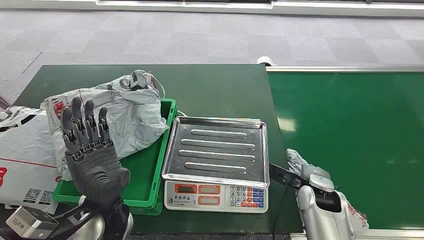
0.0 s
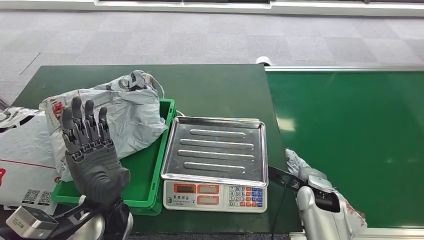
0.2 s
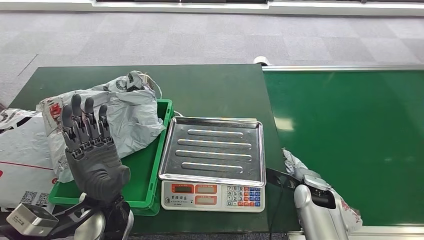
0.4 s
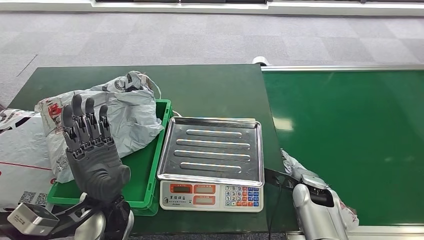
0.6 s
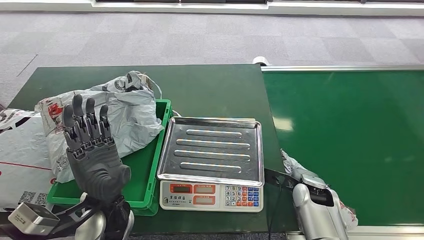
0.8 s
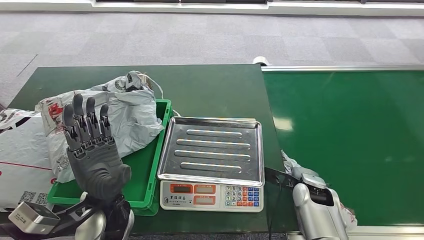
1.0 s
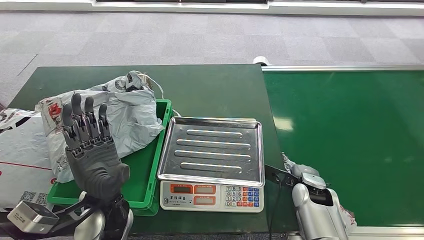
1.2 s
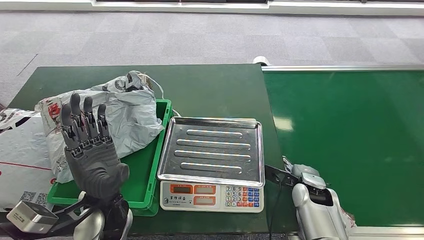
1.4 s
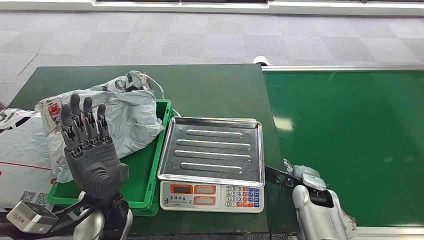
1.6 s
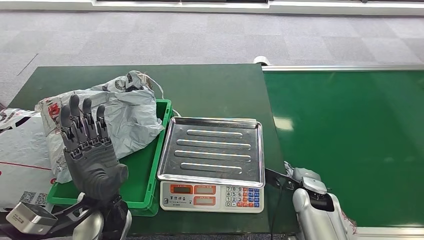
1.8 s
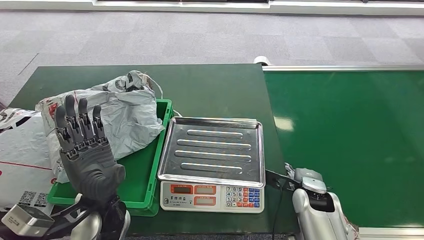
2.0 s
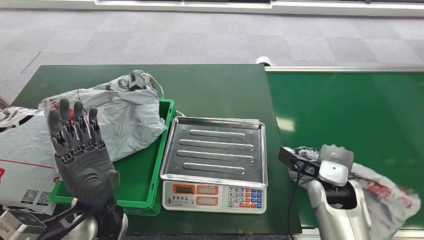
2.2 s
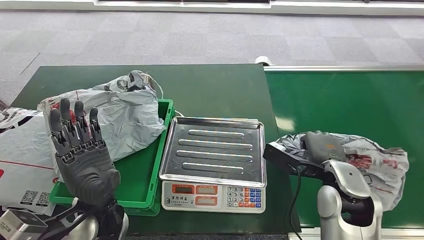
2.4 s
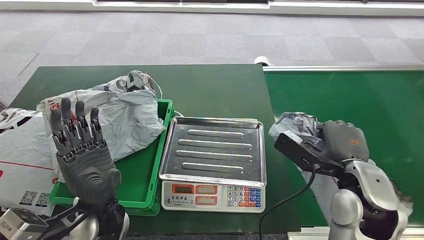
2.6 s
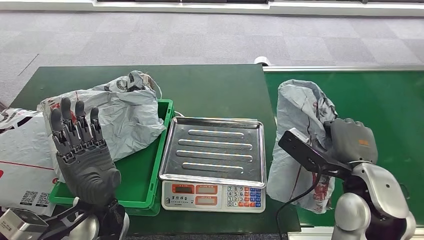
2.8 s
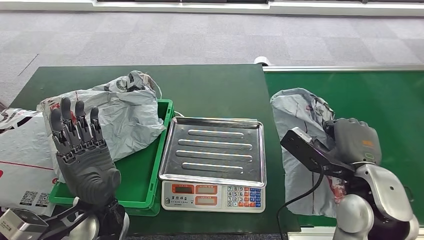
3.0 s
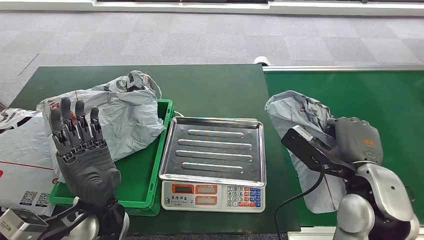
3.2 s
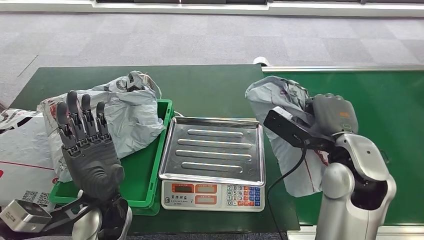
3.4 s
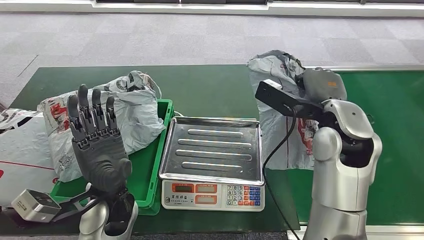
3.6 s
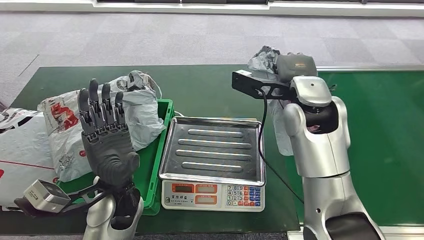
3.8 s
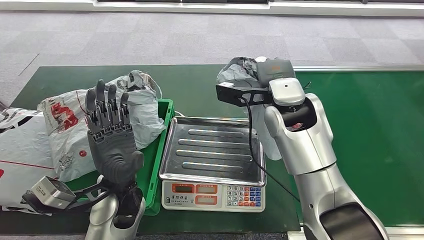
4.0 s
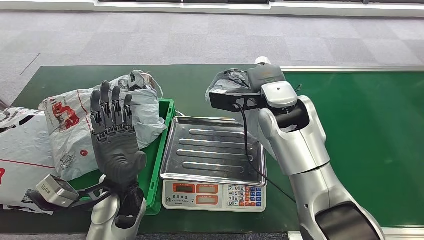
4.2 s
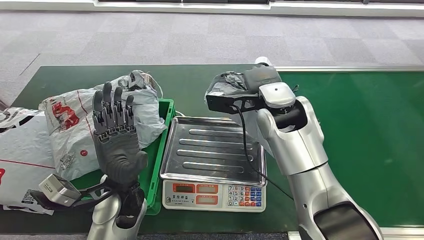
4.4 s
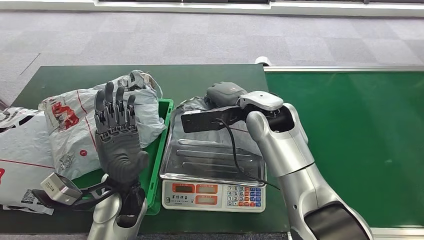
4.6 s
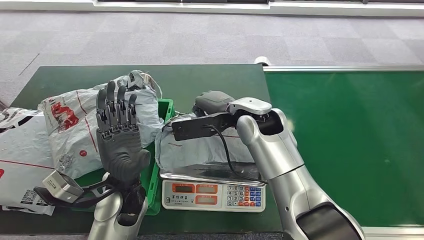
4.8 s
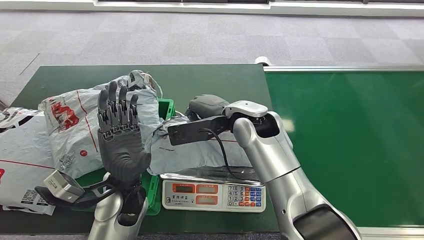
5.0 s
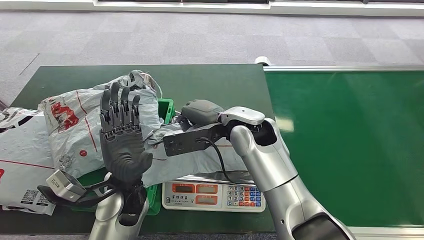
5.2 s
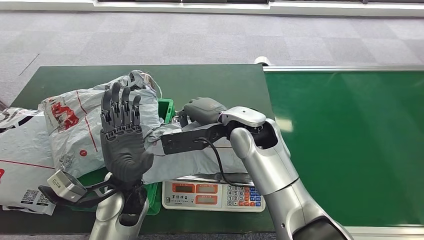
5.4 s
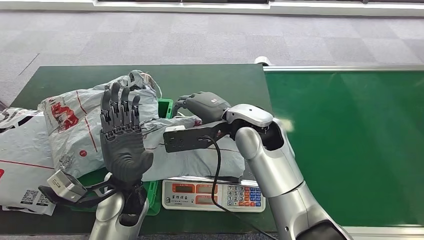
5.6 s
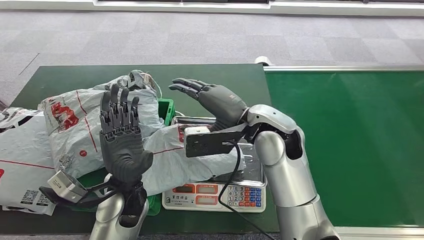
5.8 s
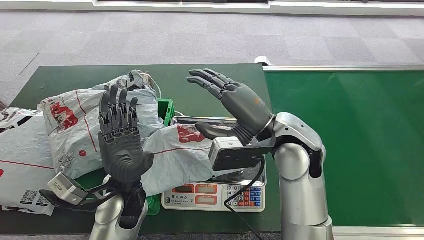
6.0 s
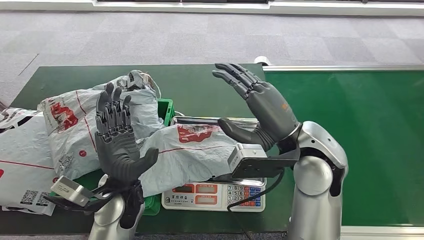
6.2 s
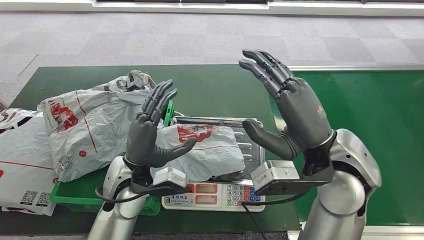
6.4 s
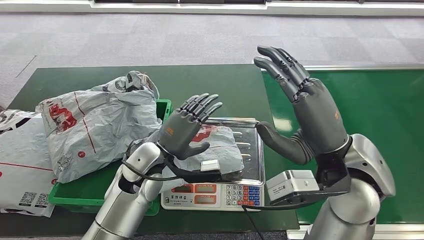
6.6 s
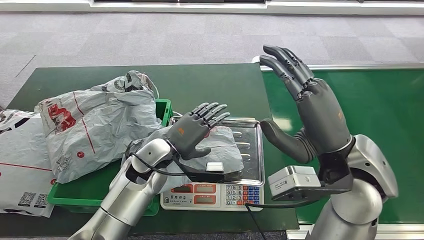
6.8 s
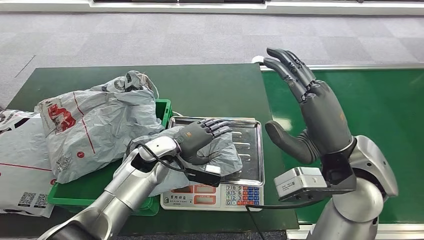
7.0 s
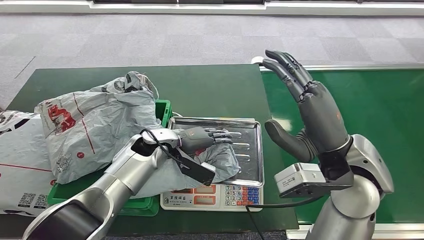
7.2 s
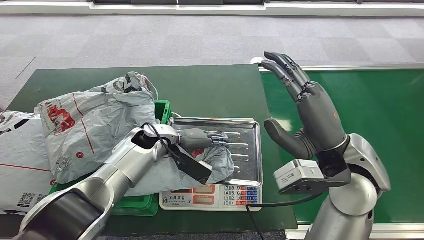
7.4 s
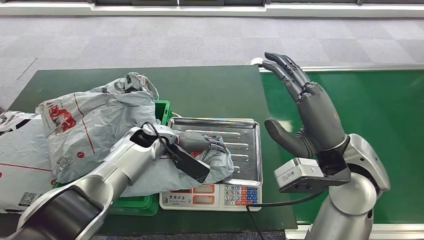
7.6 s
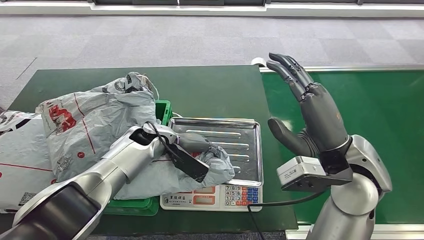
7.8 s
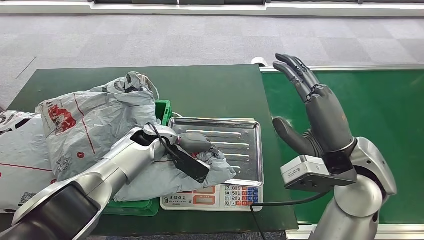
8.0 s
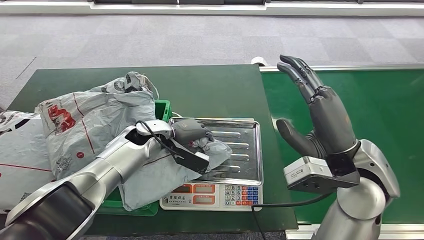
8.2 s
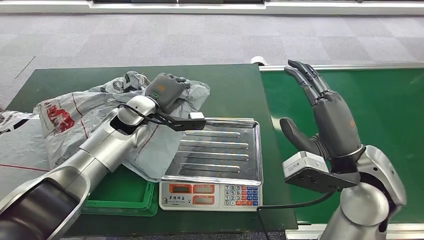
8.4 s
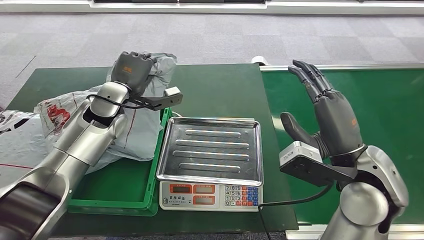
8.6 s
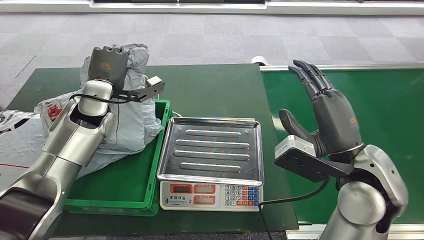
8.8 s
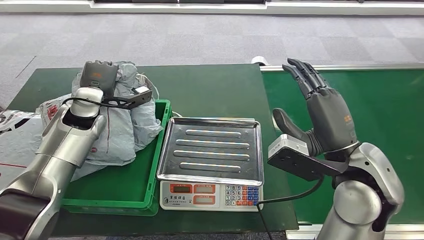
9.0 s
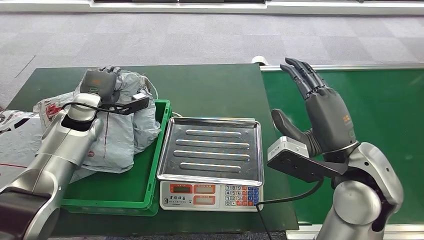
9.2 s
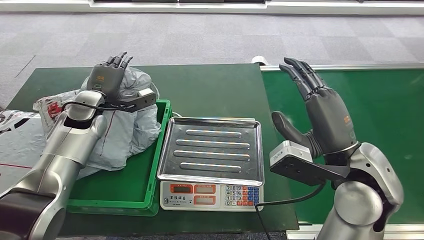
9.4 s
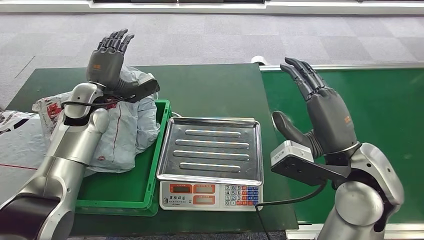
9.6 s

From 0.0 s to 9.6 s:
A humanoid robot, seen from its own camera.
Step, from 0.0 s to 3.4 s: Pick up the package from the conveyor belt.
Step, from 3.6 s to 5.8 s: Place the package onto the inbound machine.
Step, from 6.0 s to 8.4 s: Pick up the package from the inbound machine.
Step, from 8.6 s to 9.6 s: Place the package into the parcel locker.
